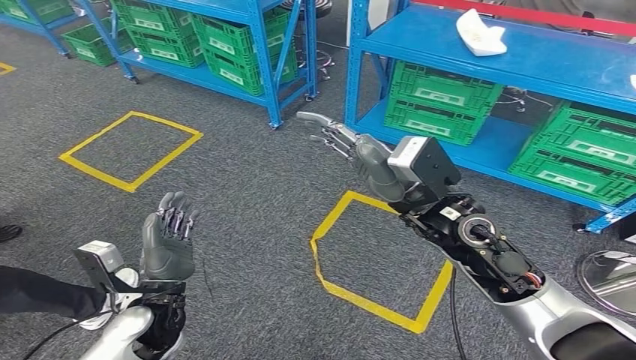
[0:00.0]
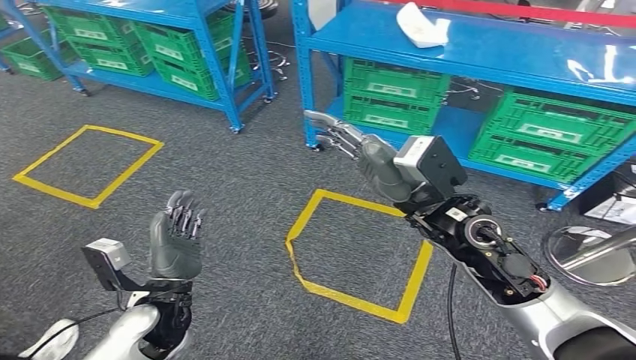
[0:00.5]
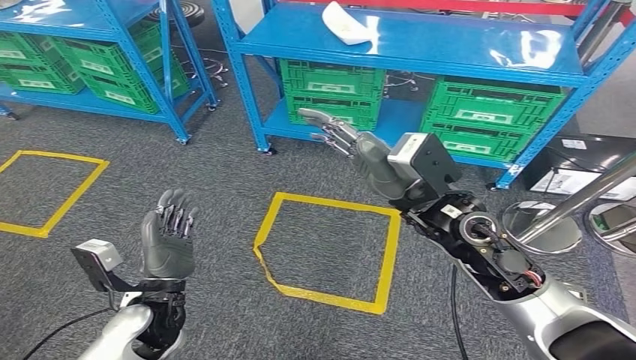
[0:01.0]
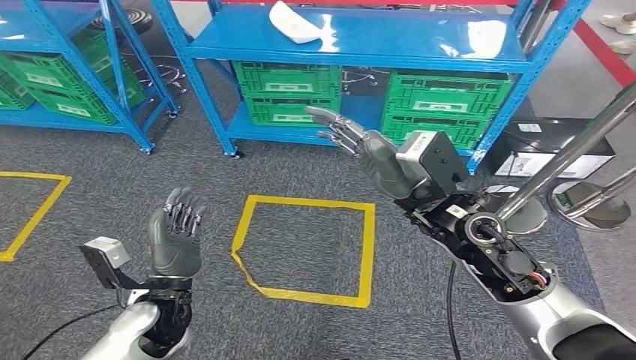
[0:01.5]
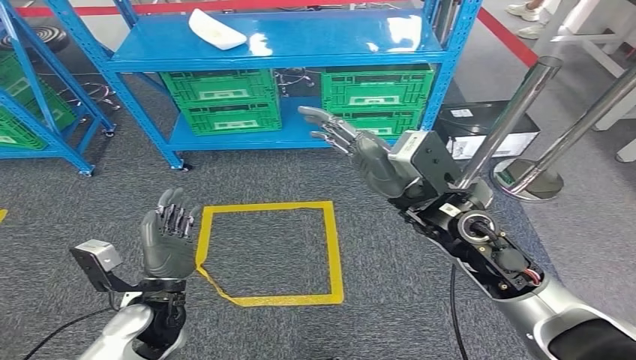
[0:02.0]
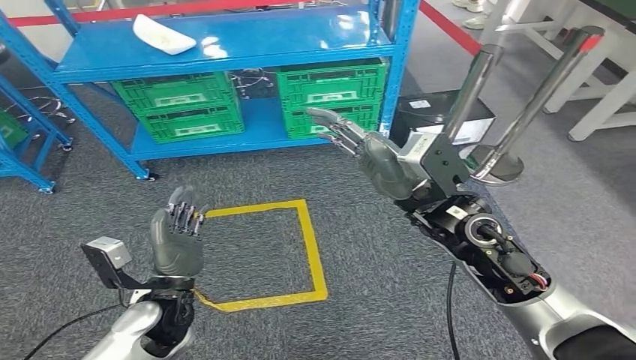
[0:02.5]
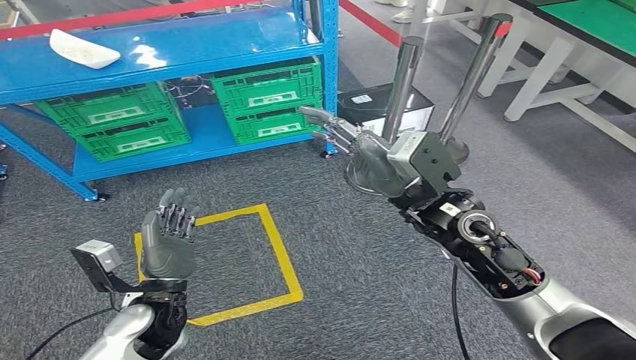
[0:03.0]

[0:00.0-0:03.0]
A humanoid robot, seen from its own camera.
Step, 0:00.0 to 0:03.0: Return to the initial position at the workbench.
